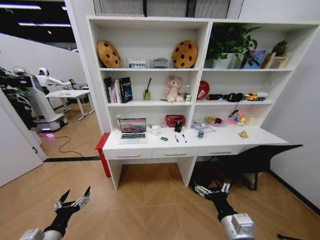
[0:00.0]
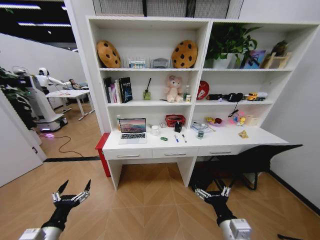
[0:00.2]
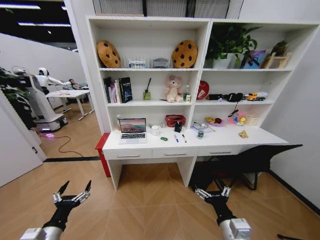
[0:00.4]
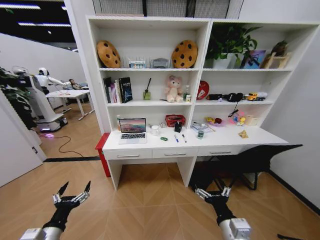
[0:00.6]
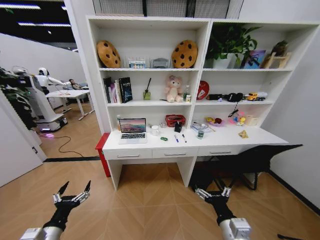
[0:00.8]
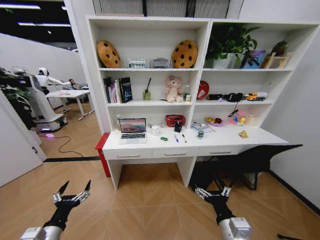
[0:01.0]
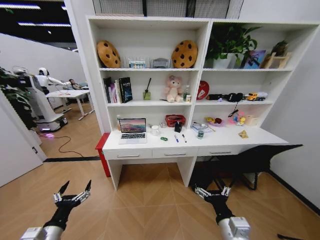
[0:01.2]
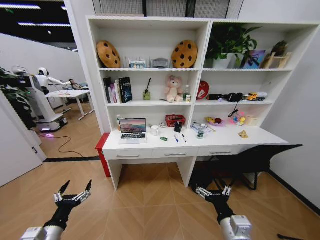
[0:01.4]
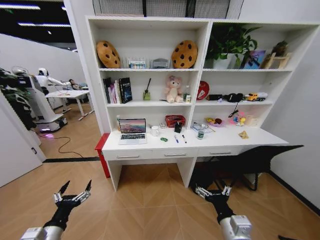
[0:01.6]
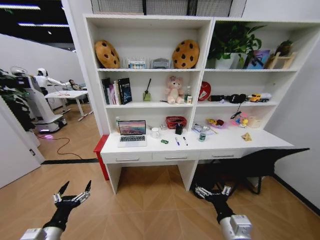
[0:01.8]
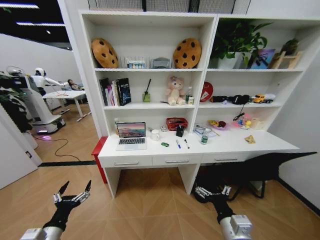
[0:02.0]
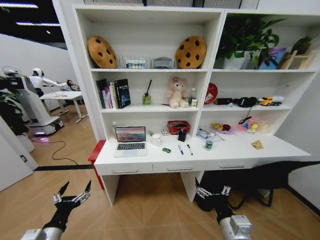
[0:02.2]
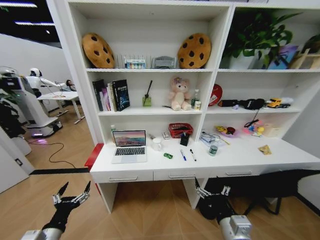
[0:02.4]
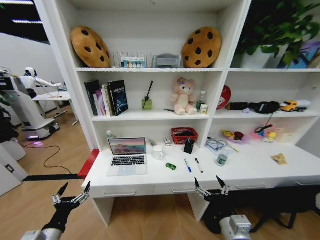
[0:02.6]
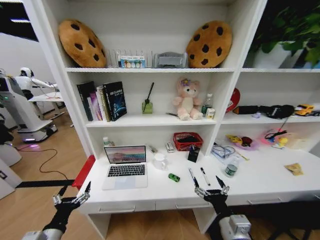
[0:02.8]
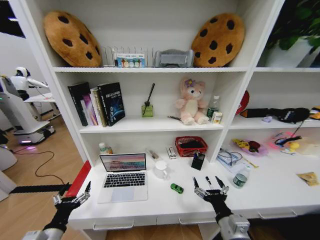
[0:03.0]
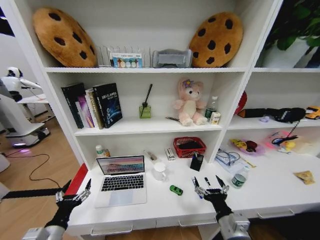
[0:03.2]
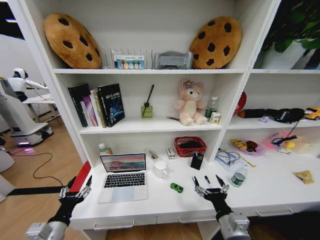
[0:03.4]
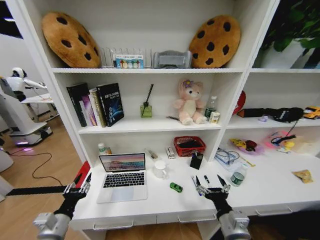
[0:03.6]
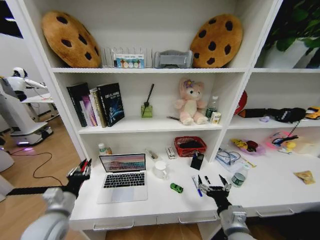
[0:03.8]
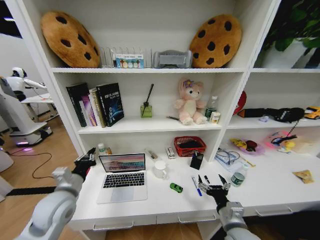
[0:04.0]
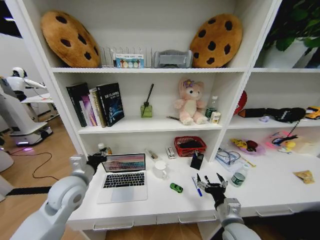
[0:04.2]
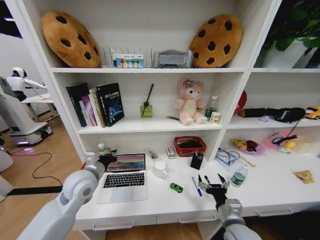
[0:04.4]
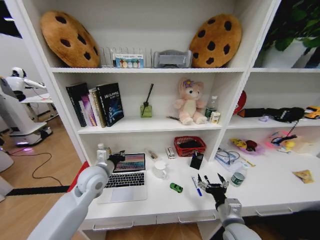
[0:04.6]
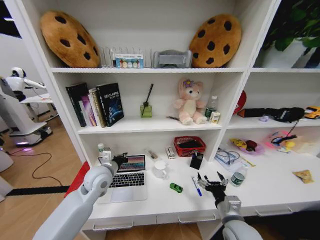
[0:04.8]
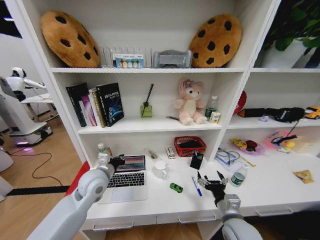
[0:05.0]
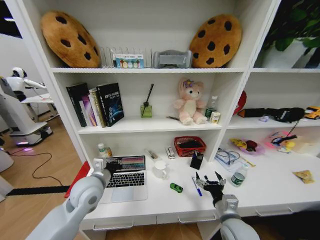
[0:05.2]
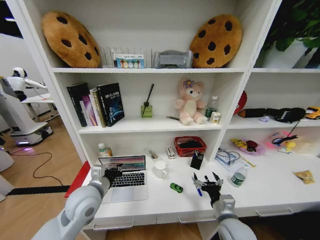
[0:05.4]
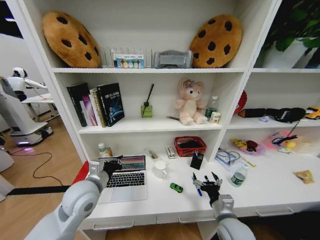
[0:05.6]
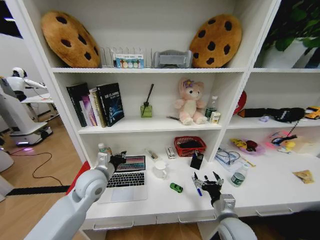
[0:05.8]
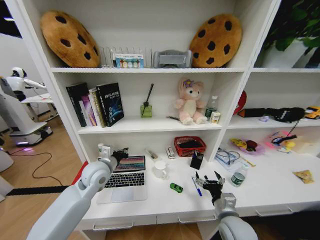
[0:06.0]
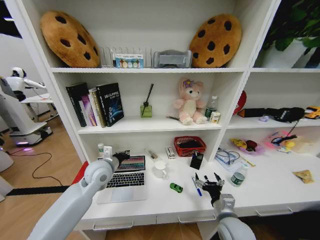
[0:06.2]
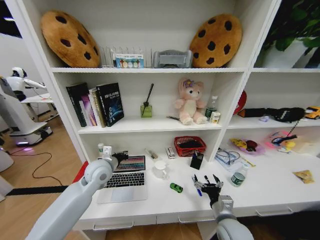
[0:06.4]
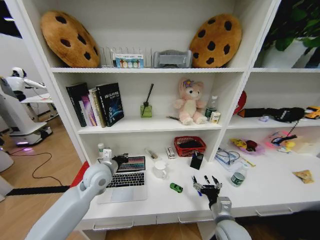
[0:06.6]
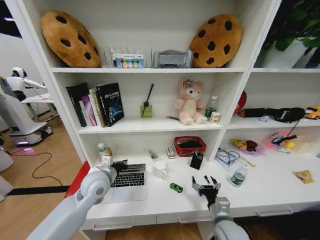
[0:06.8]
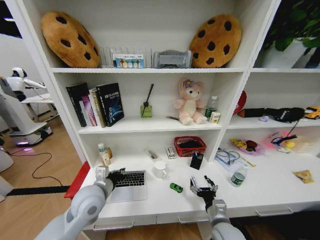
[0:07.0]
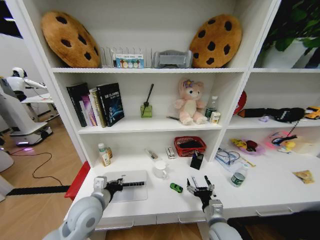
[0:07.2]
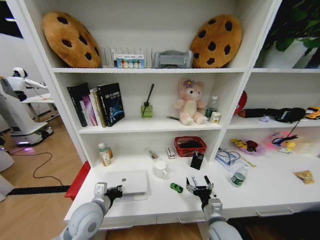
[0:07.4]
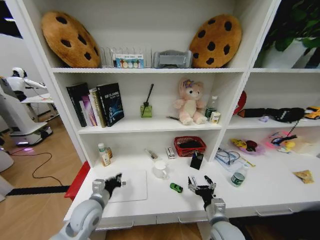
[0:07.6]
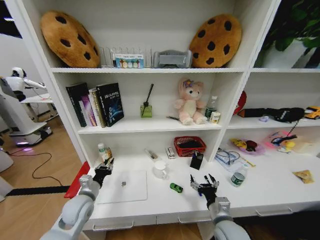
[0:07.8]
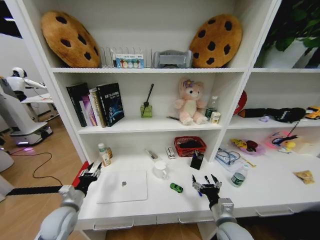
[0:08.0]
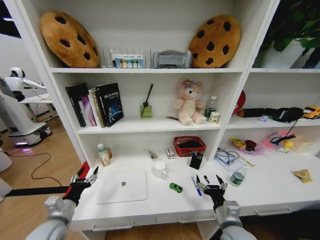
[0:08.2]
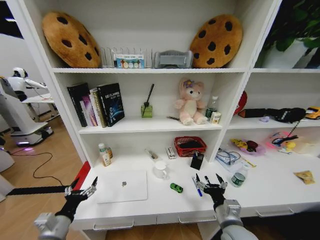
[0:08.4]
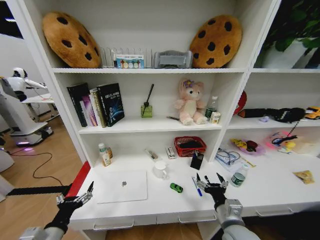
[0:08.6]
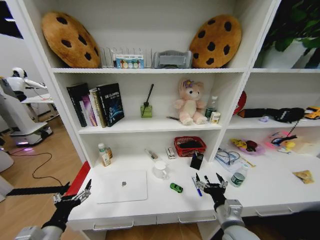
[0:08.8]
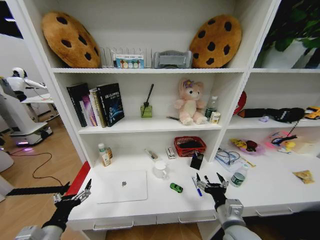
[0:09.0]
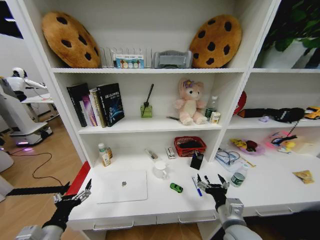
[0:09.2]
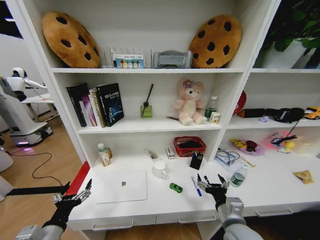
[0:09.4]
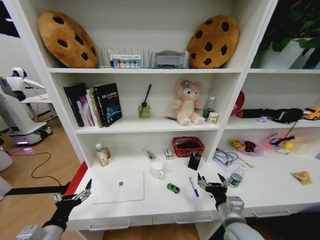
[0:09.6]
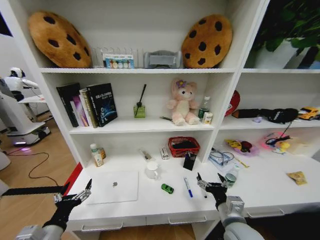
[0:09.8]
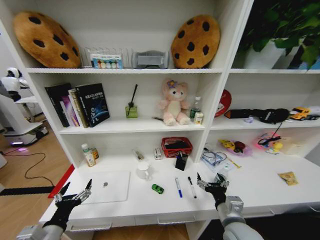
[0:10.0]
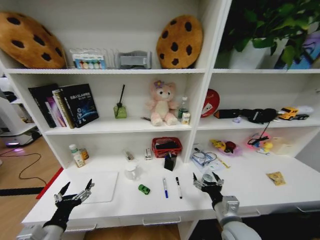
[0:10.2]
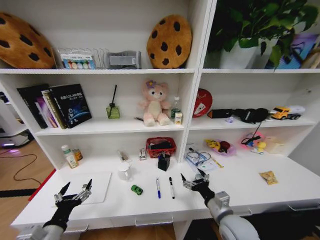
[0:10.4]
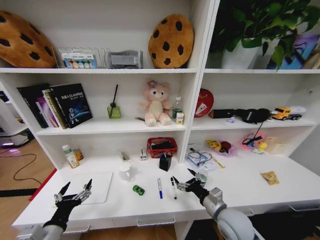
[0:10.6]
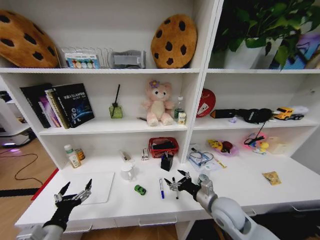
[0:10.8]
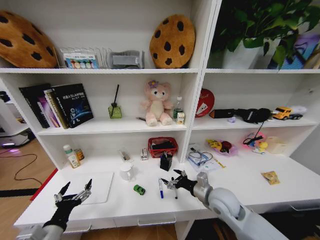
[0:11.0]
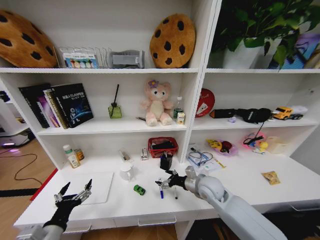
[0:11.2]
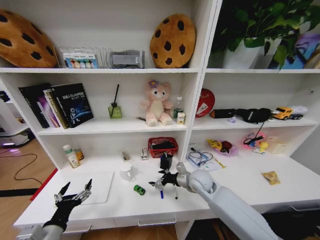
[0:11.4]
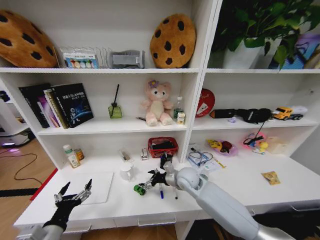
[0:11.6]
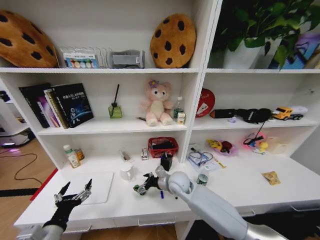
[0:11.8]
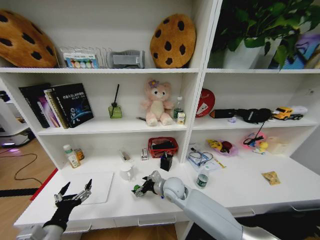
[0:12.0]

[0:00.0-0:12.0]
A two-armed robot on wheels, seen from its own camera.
Task of the whole recording: Organize the objects on the table.
0:03.0 to 0:04.4: The left gripper shifts about 25 cm forward, upward and to the right, and closes up. Meanwhile the right gripper shifts by some 5 cm.
0:04.4 to 0:06.0: The left gripper ends up about 5 cm from where it was.
0:06.0 to 0:07.6: The left gripper goes some 15 cm downward and backward.
0:07.6 to 0:09.0: The left gripper travels backward and to the left by roughly 15 cm, and opens. Meanwhile the right gripper moves upward, about 5 cm.
0:10.4 to 0:12.0: The right gripper heads to the left and forward, covering approximately 25 cm.

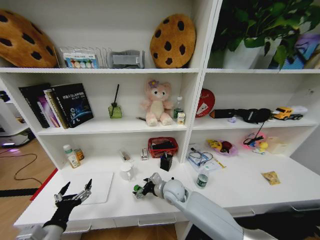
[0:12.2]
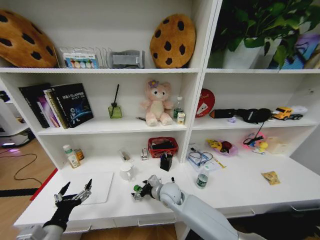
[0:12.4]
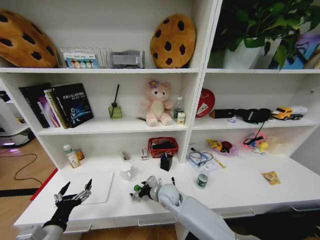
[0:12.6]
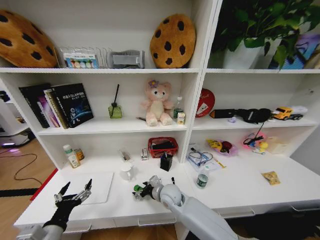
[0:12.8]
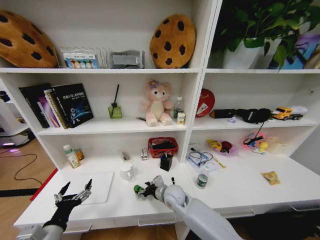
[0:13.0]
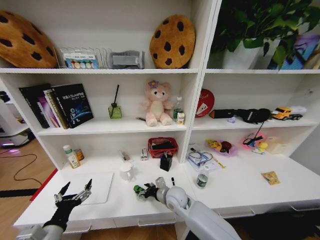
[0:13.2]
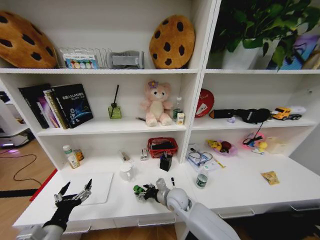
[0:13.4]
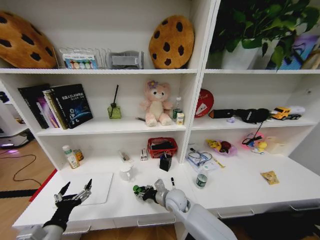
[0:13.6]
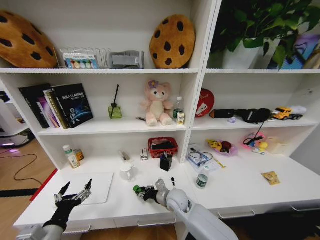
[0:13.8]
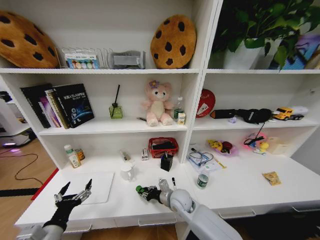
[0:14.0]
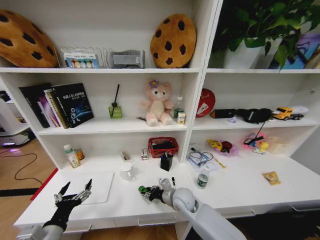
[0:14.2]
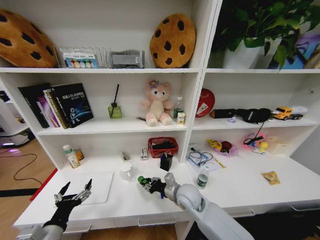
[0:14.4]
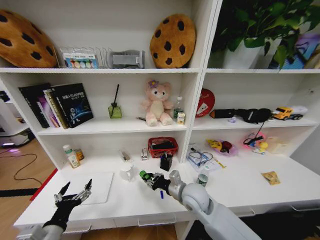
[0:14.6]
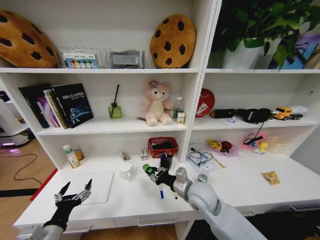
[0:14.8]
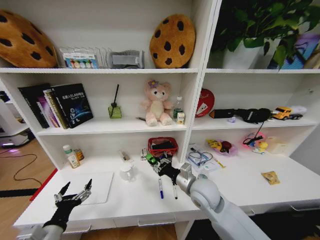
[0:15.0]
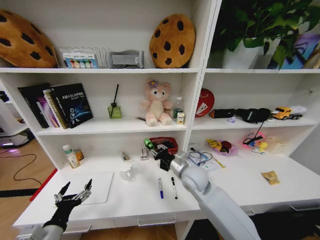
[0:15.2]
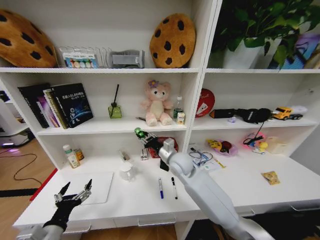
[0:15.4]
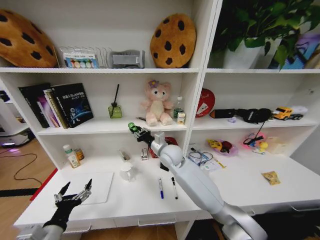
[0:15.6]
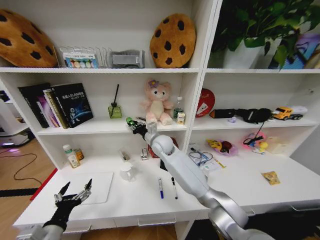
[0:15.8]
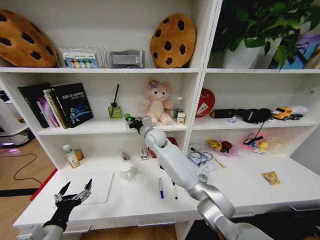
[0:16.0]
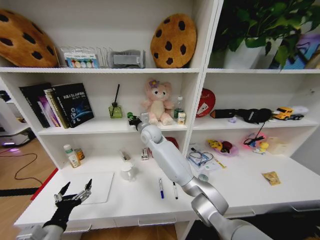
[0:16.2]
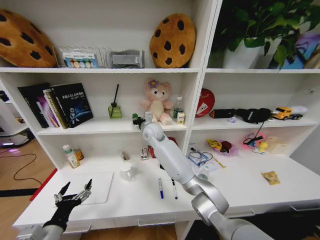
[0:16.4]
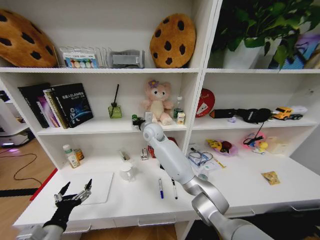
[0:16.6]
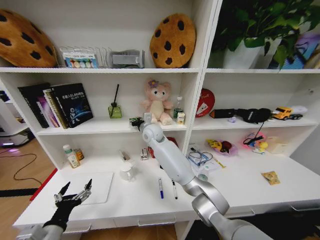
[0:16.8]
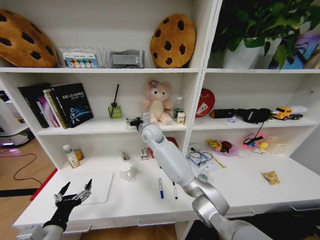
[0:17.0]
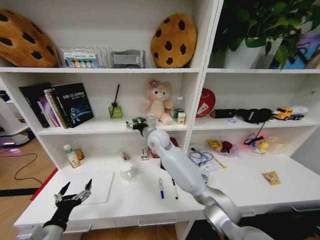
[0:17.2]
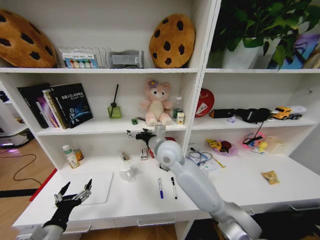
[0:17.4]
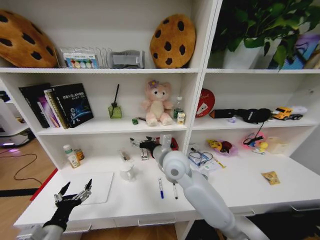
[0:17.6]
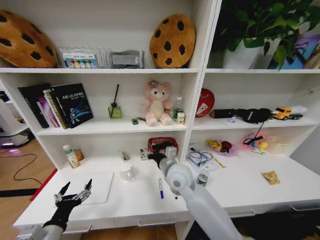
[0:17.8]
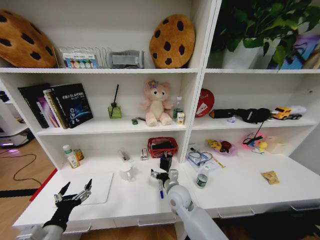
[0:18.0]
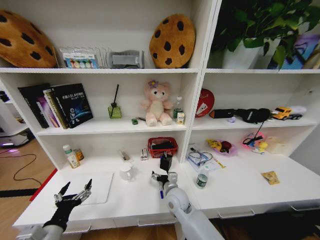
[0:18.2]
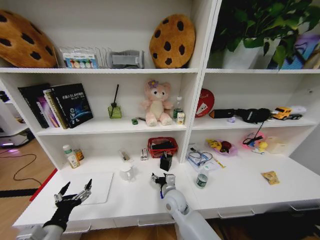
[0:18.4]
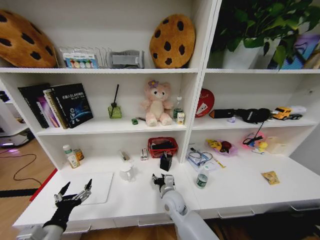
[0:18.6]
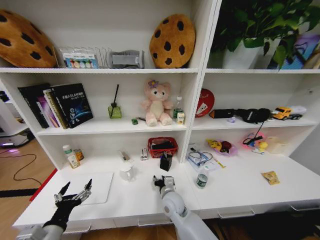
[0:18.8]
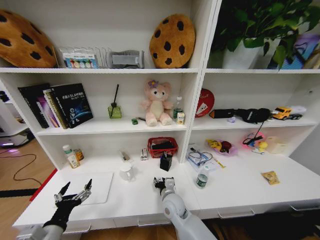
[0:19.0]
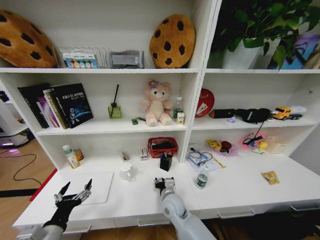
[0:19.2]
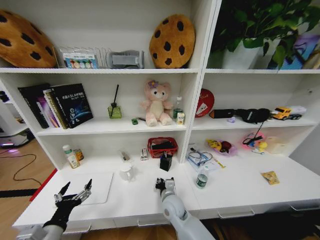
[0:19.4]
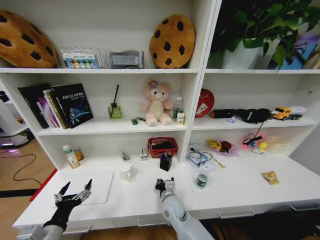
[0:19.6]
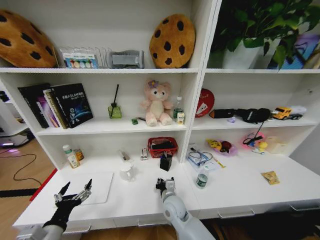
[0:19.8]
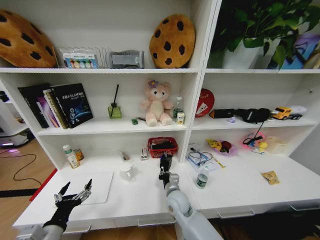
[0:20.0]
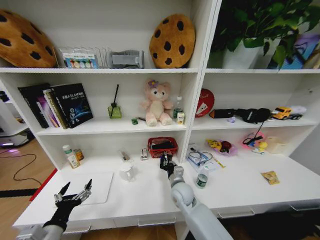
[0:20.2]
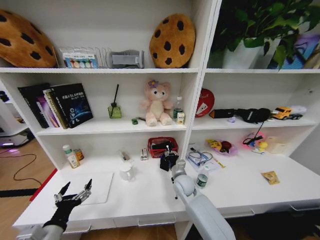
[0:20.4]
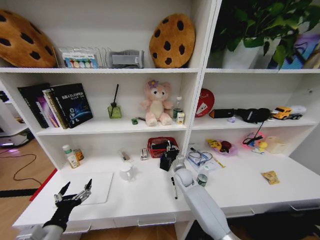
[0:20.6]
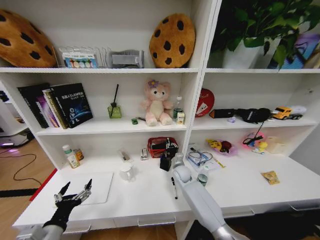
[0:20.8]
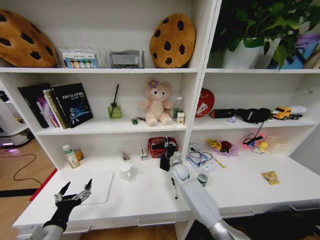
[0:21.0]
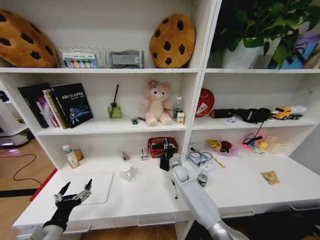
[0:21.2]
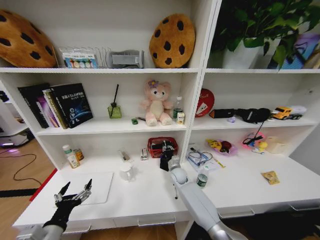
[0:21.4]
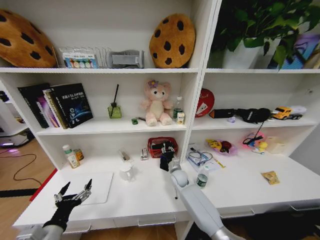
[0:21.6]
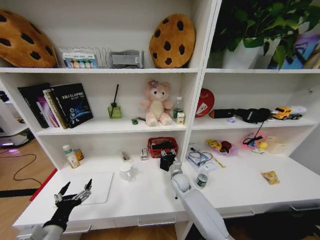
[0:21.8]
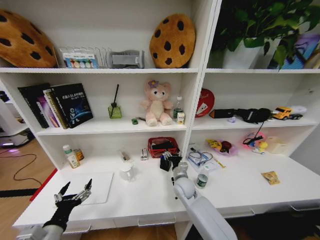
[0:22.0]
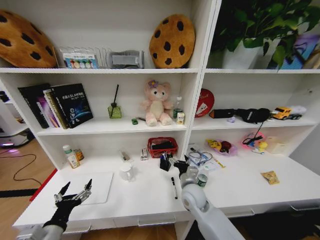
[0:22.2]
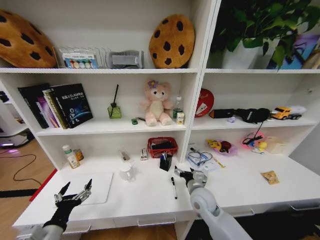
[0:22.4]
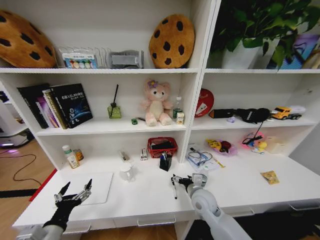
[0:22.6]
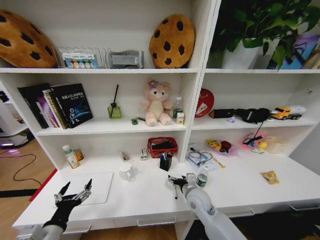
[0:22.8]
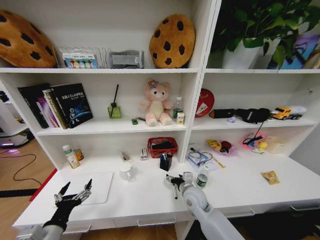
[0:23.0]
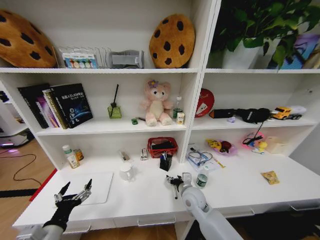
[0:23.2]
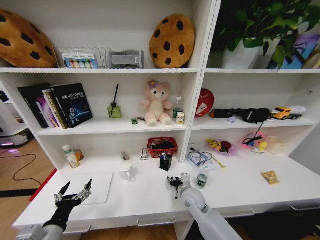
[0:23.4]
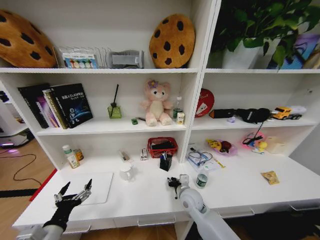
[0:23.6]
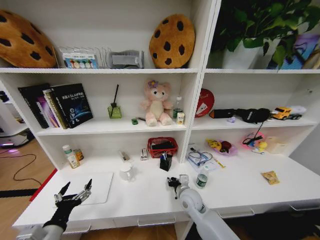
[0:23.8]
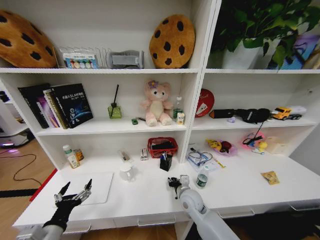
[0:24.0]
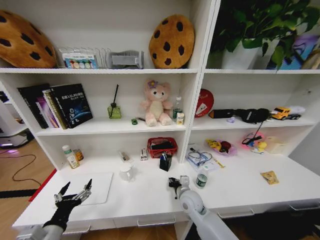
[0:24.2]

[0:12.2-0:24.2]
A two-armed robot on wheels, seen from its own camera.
Task of the whole recording: Organize the objects on the table.
0:12.2 to 0:13.8: The right gripper closes its fingers.
0:13.8 to 0:15.2: The right gripper heads upward and to the right, covering about 15 cm.
0:15.2 to 0:16.6: The right gripper heads forward, to the left and upward, covering some 25 cm.
0:16.6 to 0:18.2: The right gripper goes some 30 cm downward, backward and to the right, and opens its fingers.
0:18.2 to 0:19.8: The right gripper closes its fingers.
0:19.8 to 0:21.2: The right gripper heads forward, covering approximately 15 cm.
0:21.2 to 0:22.6: The right gripper heads backward, covering some 15 cm, and opens up.
0:22.6 to 0:24.2: The right gripper moves roughly 5 cm, and closes its fingers.
